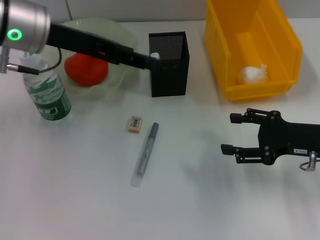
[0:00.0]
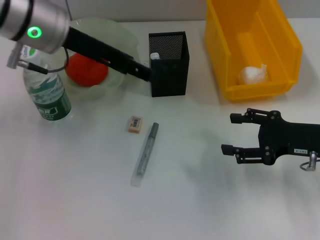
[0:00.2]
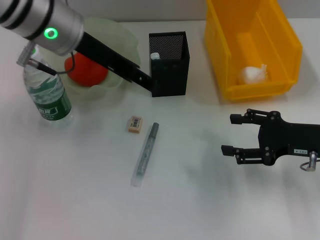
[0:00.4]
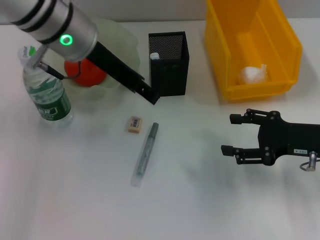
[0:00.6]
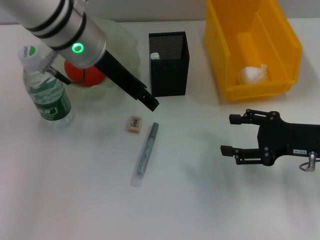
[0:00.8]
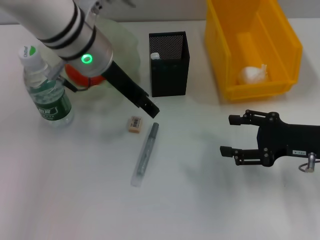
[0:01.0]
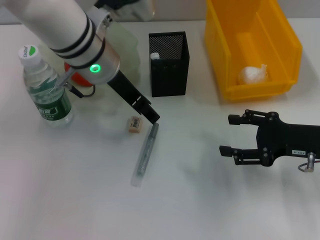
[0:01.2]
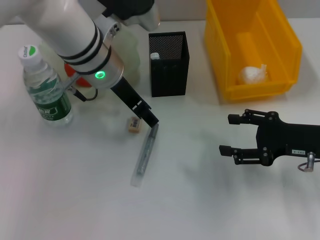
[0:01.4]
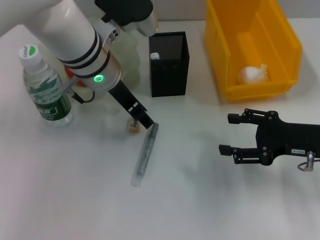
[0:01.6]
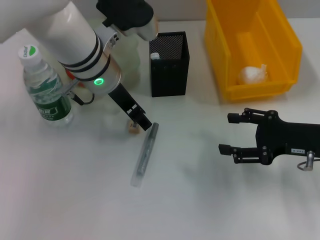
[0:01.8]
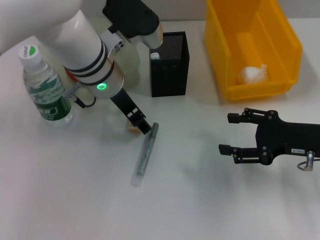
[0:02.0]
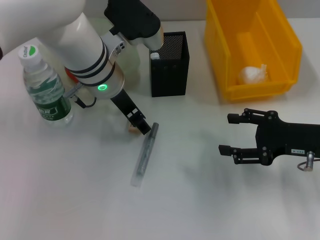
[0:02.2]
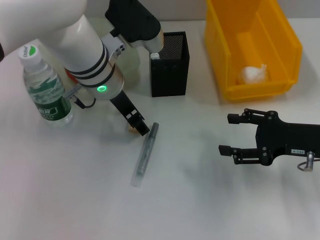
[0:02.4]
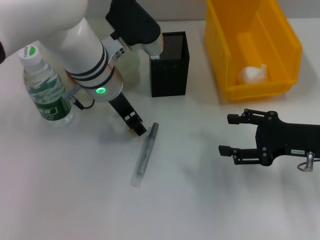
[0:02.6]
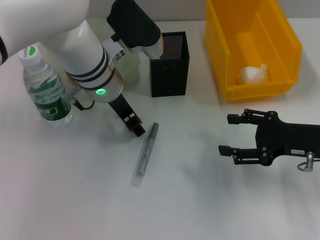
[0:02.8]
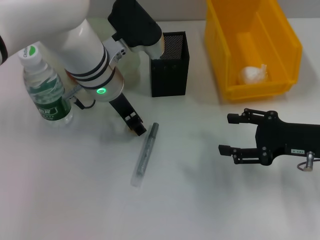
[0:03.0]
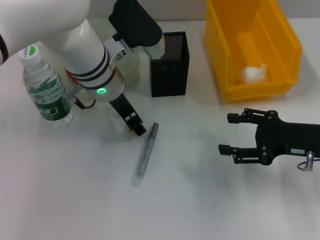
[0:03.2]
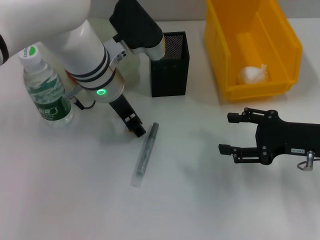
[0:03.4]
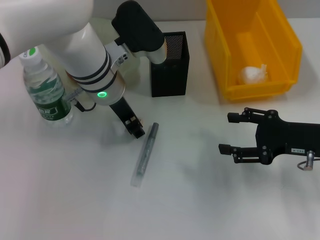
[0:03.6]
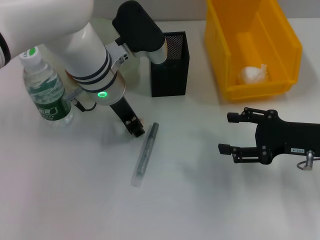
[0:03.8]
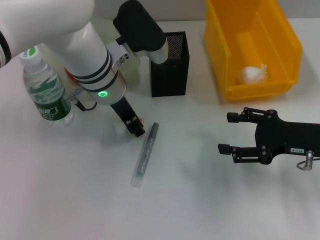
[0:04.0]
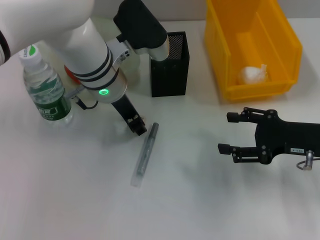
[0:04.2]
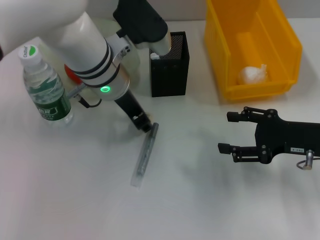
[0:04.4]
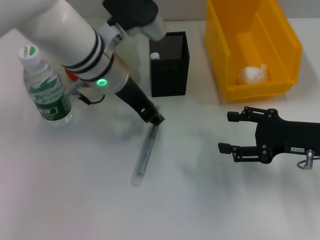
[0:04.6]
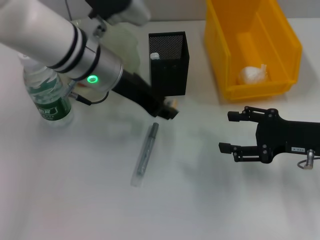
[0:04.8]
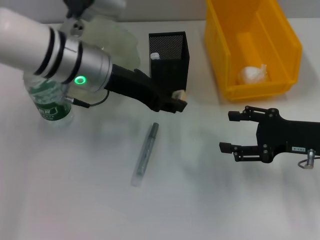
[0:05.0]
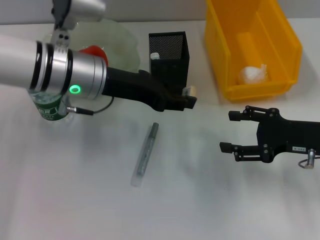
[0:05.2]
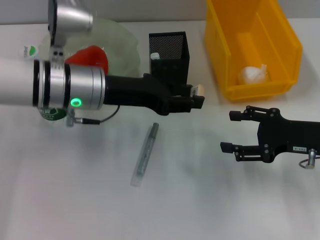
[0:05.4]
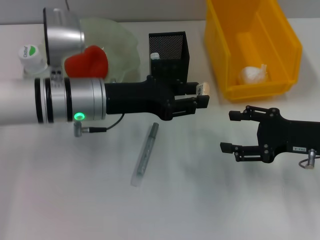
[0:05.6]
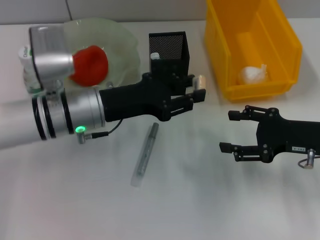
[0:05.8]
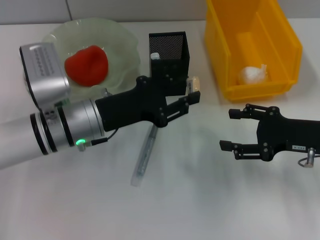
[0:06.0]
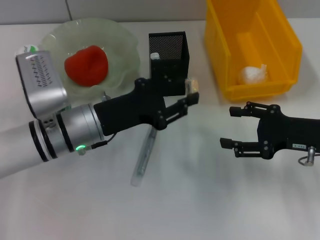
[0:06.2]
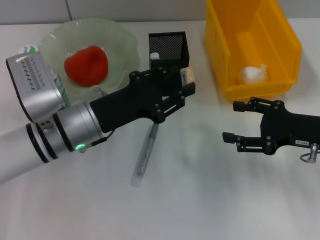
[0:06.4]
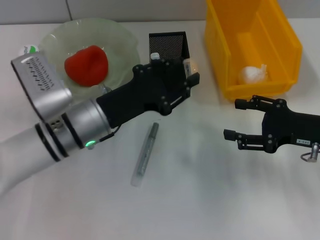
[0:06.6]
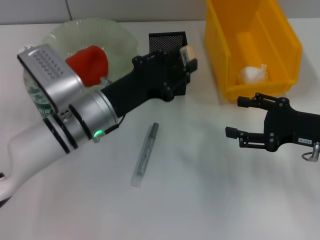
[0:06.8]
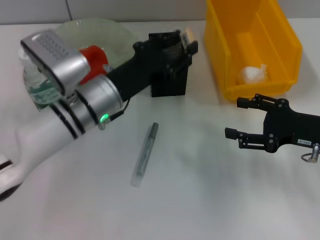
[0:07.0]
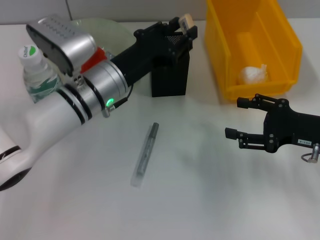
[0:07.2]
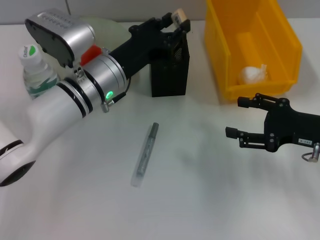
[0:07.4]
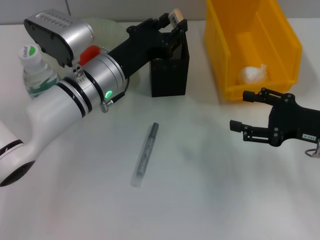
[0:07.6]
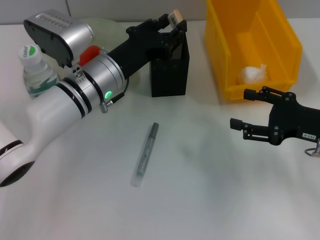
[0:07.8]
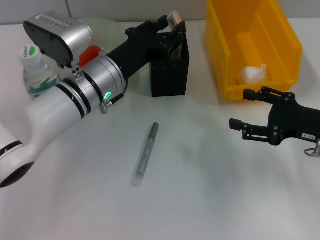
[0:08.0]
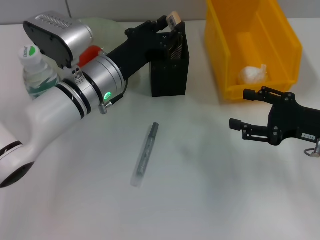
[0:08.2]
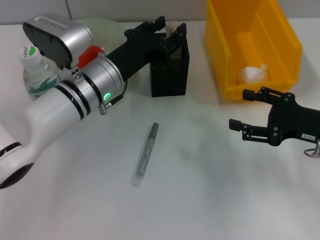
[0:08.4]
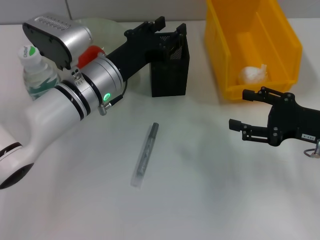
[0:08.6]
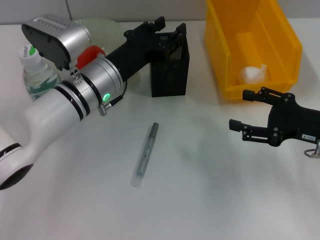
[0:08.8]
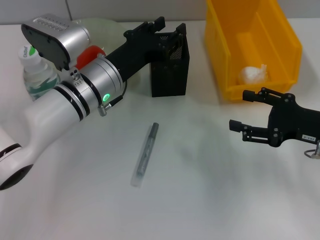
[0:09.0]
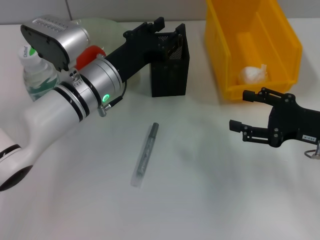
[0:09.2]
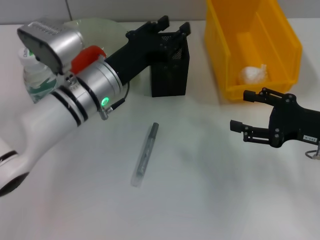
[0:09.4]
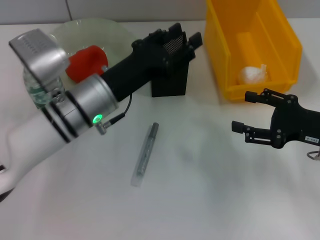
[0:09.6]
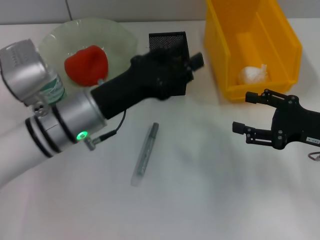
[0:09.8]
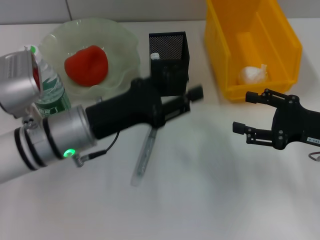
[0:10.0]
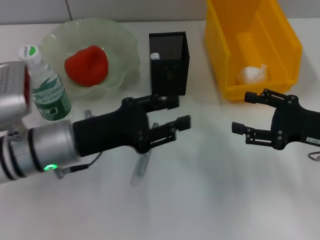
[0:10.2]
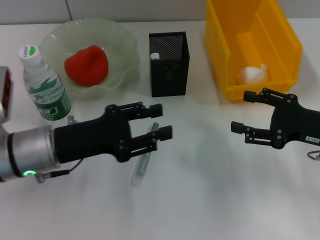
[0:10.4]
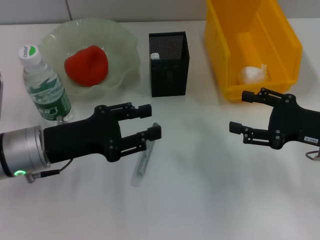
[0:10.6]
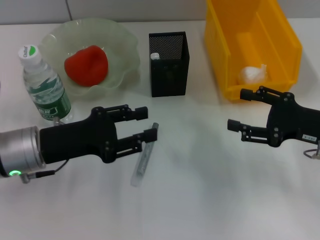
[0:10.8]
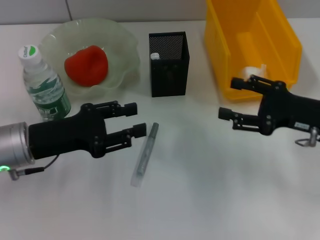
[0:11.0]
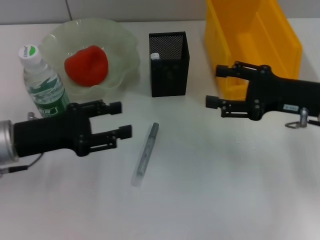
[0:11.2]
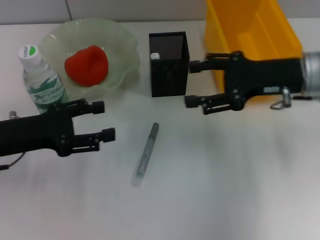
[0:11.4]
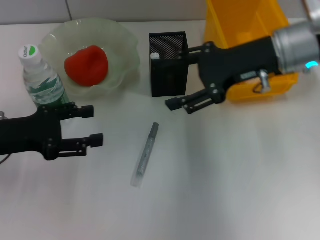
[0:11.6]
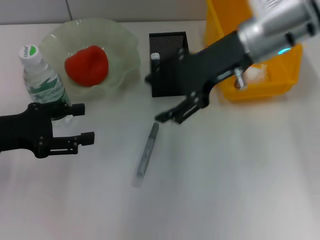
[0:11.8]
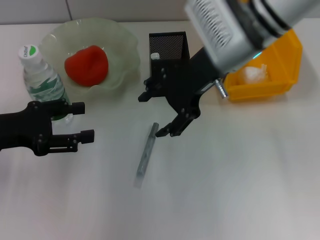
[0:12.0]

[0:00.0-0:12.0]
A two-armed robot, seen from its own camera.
Step, 0:00.0 to 0:04.0: Grab the eraser with the left hand.
Step, 0:04.2 to 0:08.4: Place the eraser into the pen holder with the left hand.
0:00.0 to 0:01.6: The left gripper heads to the right and downward, covering some 10 cm.
0:01.6 to 0:03.0: The grippers stay close to where they were, moving slightly.
0:03.0 to 0:04.4: Both grippers stay put.
0:04.4 to 0:06.0: The left gripper moves downward, to the left and backward, some 10 cm.
0:06.0 to 0:07.6: The left gripper moves roughly 5 cm.
0:07.6 to 0:09.0: Both grippers stay about where they are.
0:09.0 to 0:10.4: The left gripper moves backward and to the left, roughly 10 cm.
0:10.4 to 0:12.0: The left gripper moves to the left, some 10 cm. The right gripper travels to the left, upward and forward by about 25 cm.

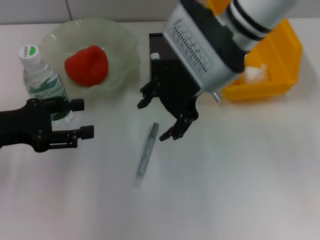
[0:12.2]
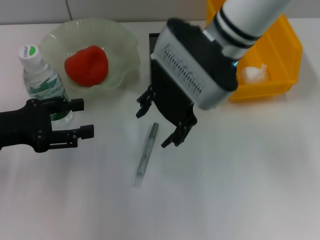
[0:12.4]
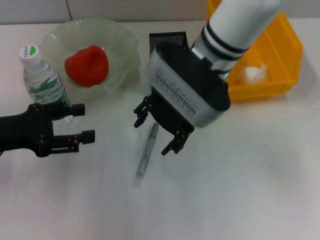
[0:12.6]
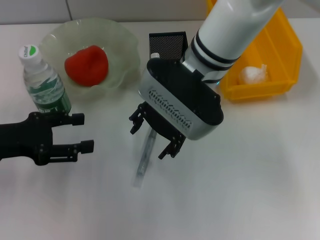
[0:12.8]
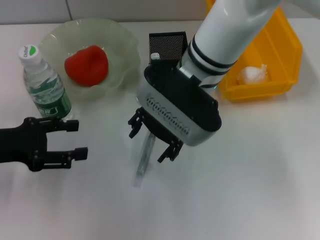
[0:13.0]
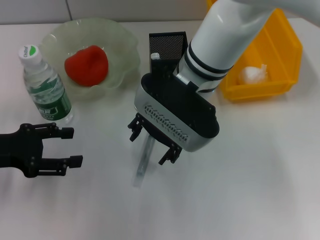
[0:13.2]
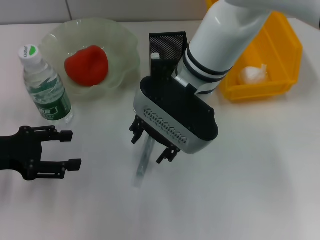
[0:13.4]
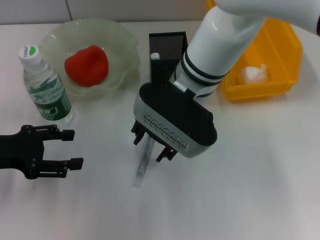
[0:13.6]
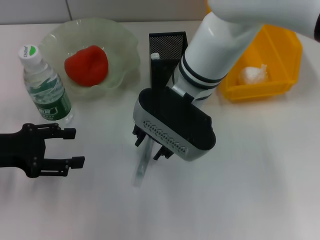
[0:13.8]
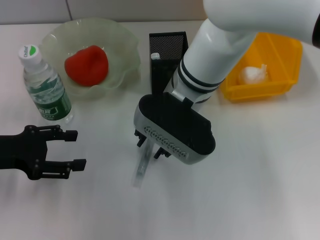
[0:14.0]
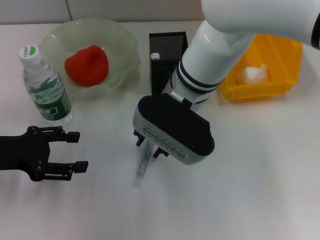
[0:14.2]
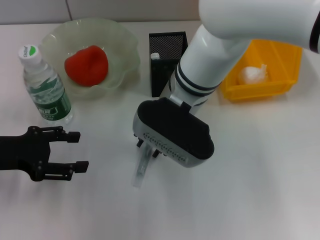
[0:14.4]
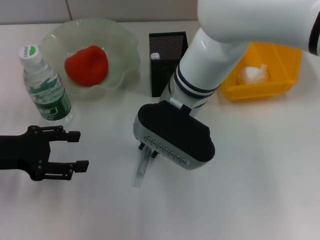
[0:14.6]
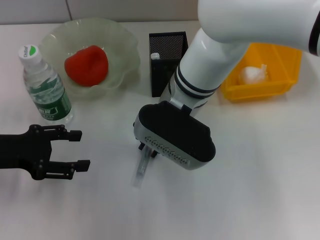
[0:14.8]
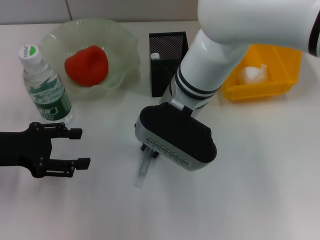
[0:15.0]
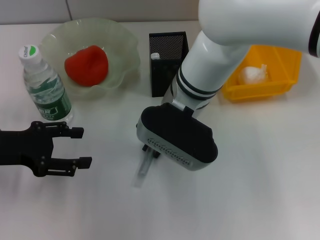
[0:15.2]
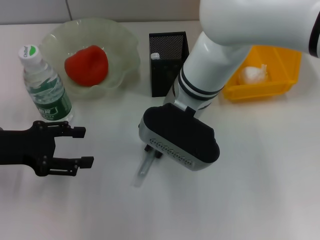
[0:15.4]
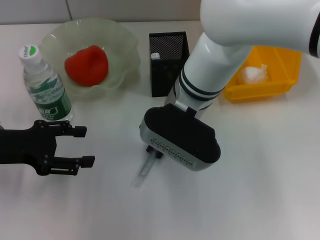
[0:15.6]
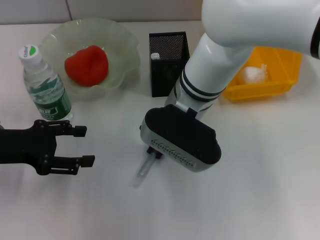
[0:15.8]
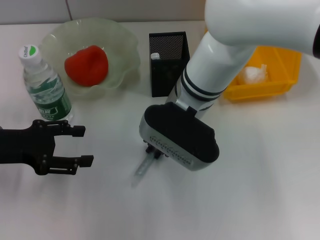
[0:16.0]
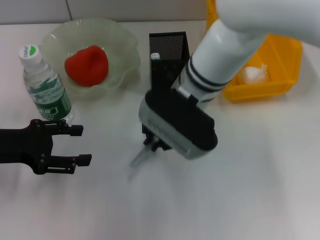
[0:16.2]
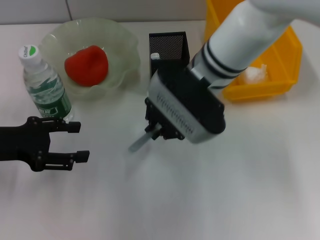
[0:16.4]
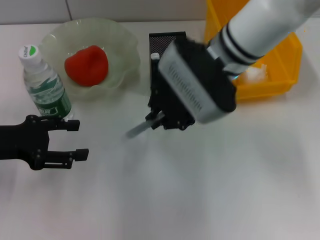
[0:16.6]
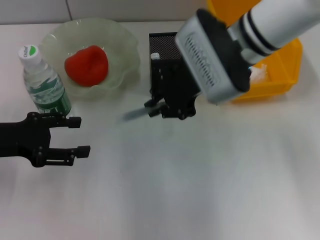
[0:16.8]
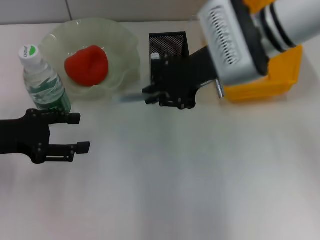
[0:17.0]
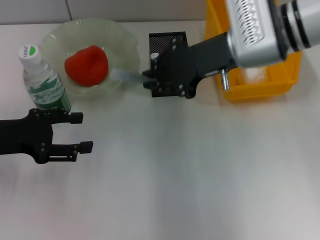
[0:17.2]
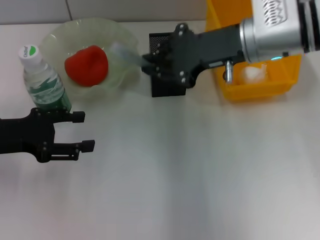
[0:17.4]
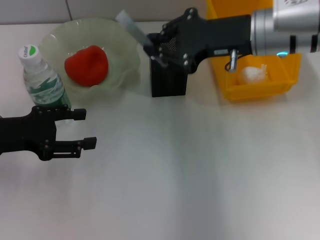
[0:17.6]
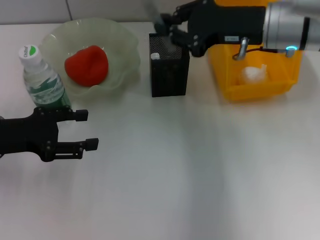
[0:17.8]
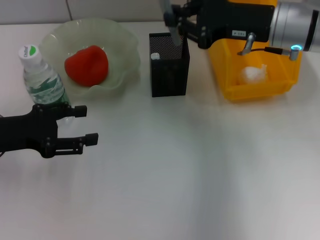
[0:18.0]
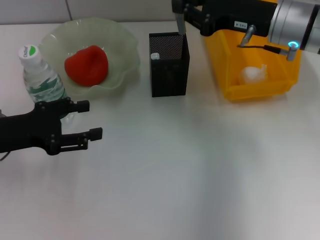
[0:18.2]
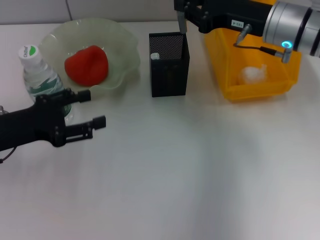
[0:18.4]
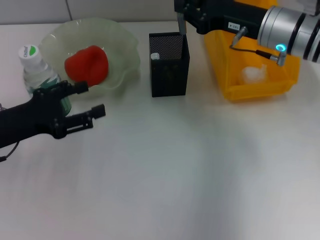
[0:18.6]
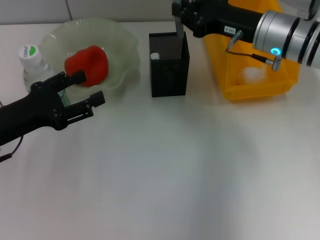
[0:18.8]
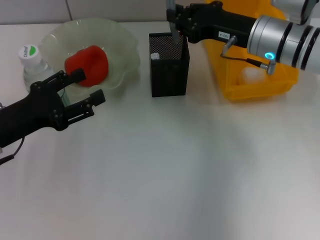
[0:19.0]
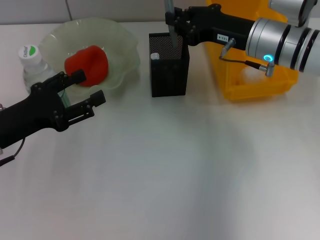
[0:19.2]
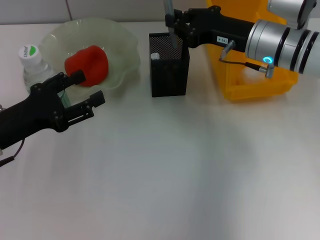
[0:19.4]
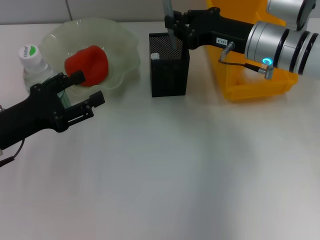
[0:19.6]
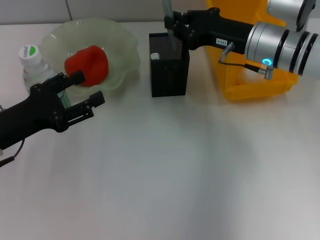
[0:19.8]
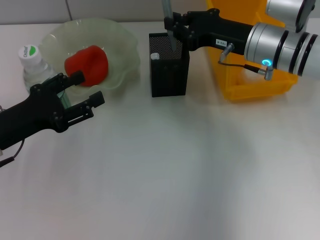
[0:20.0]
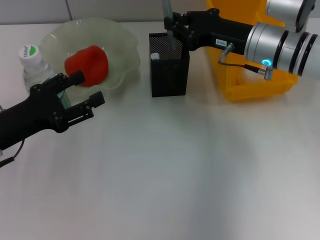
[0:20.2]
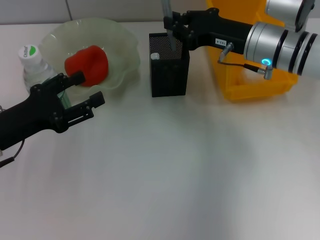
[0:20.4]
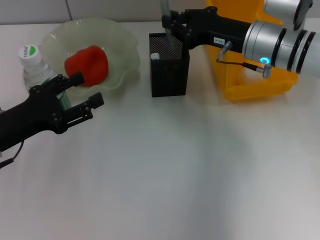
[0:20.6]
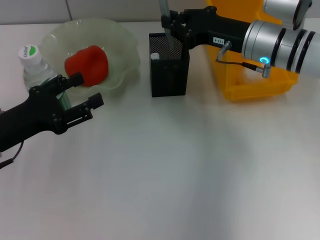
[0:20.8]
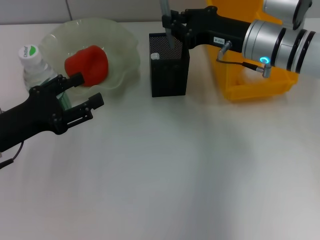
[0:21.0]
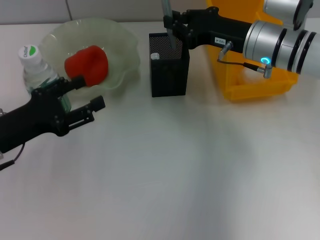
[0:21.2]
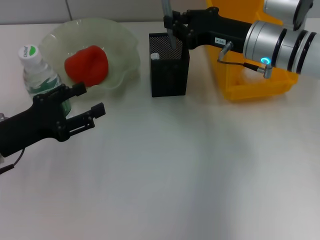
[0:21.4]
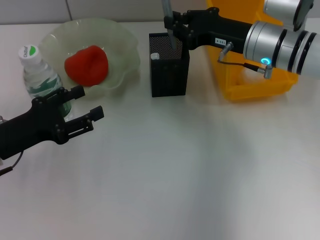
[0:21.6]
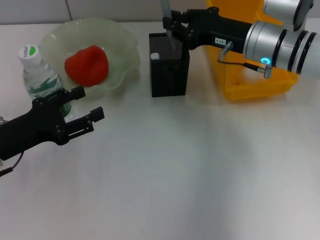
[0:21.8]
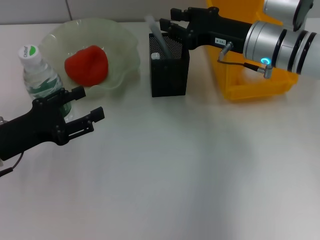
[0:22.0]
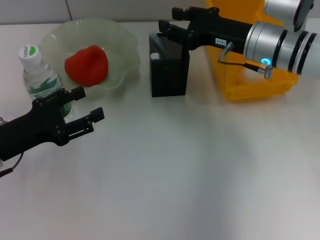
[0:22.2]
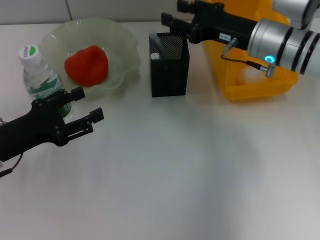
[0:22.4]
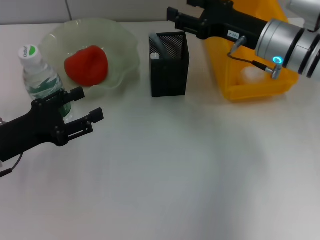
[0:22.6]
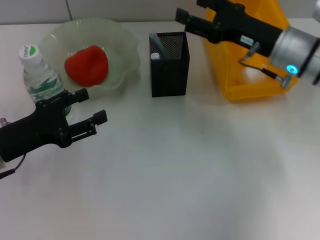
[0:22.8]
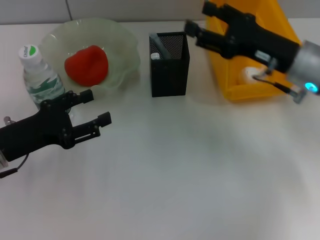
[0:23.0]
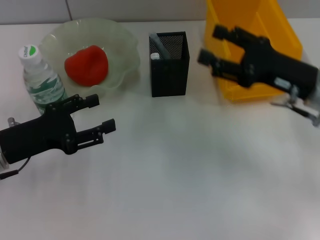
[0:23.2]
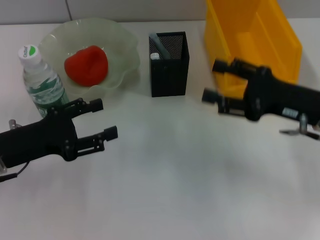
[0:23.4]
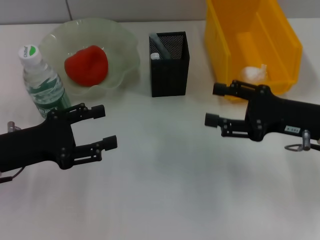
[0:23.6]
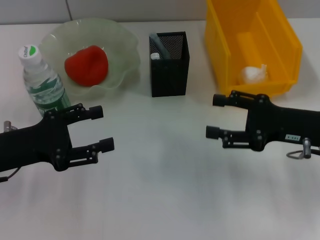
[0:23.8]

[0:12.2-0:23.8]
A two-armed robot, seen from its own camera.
Step, 0:12.2 to 0:15.8: Grab the gray glue with the right hand.
Step, 0:16.2 to 0:22.0: Place the gray glue into the pen holder with the right hand.
0:12.2 to 0:13.6: The right gripper shifts by approximately 5 cm.
0:13.6 to 0:15.0: The right gripper closes.
0:15.0 to 0:16.6: The right gripper moves some 5 cm.
0:16.6 to 0:18.0: The right gripper shifts approximately 10 cm to the right.
0:18.0 to 0:19.4: The right gripper ends up approximately 5 cm from where it was.
0:19.4 to 0:21.0: Both grippers stay about where they are.
0:21.0 to 0:22.4: The right gripper opens up.
0:22.4 to 0:23.8: The right gripper moves backward and to the right, roughly 15 cm, and opens.
